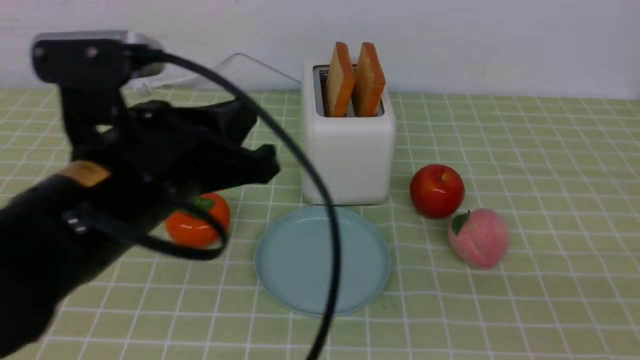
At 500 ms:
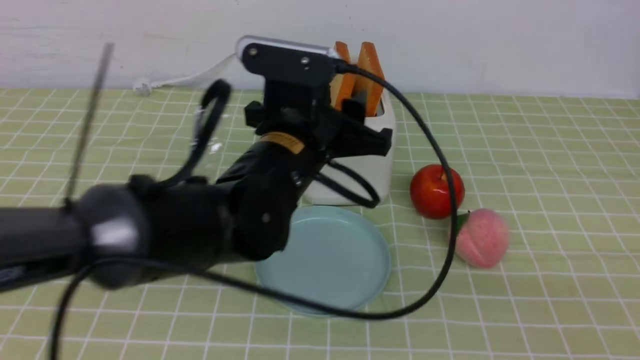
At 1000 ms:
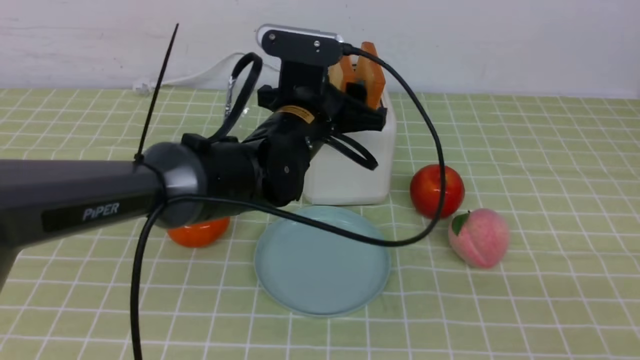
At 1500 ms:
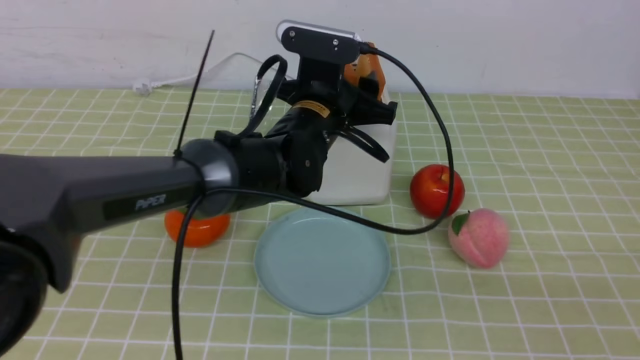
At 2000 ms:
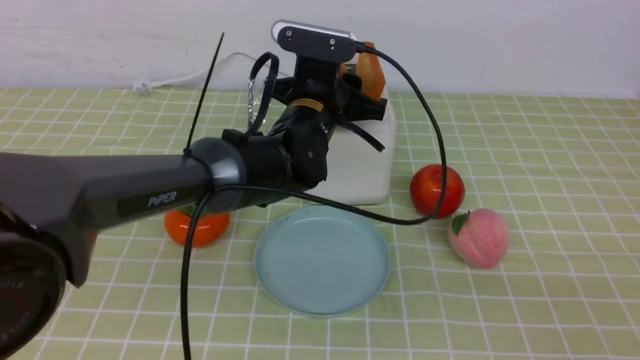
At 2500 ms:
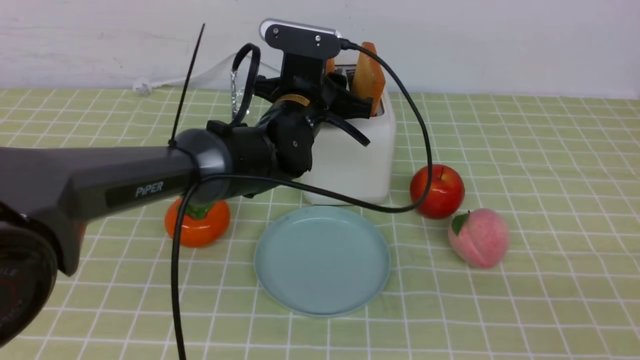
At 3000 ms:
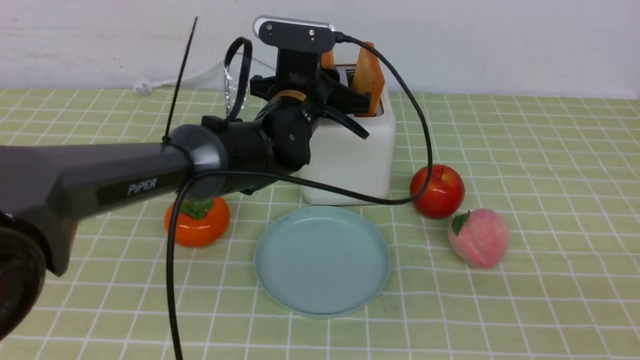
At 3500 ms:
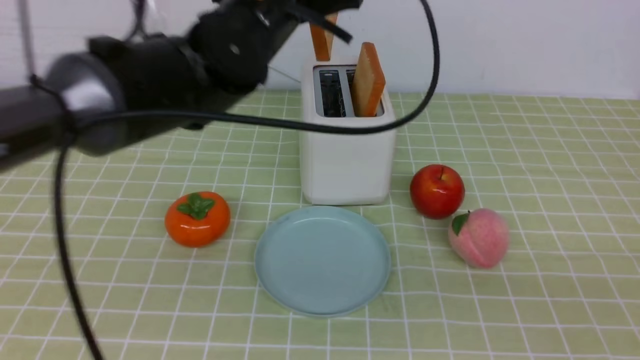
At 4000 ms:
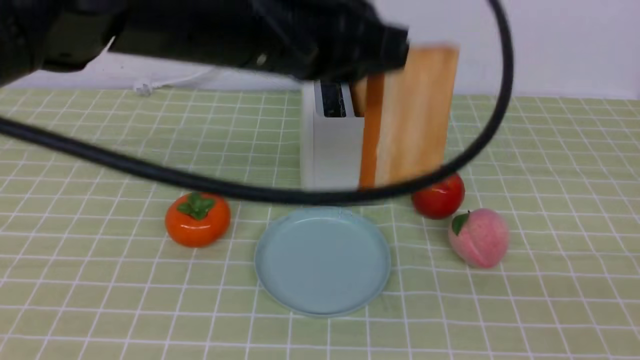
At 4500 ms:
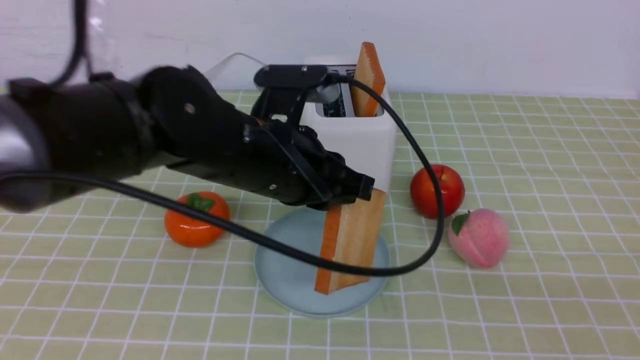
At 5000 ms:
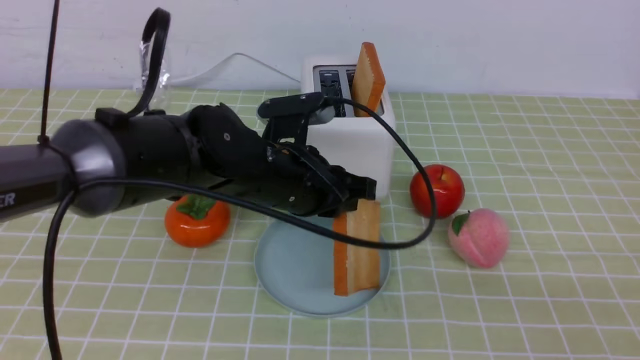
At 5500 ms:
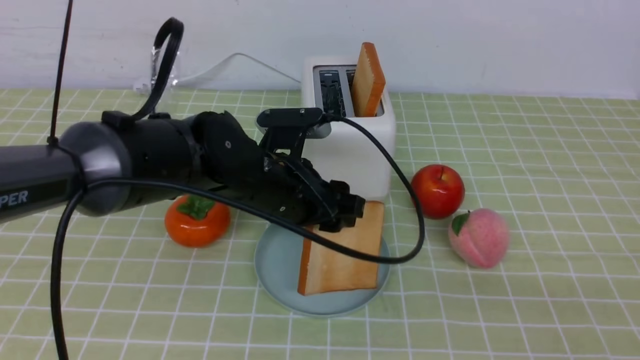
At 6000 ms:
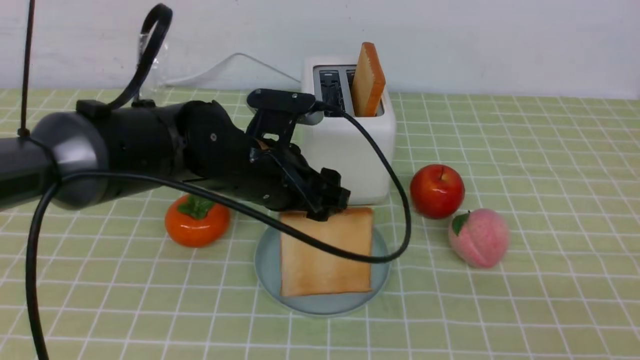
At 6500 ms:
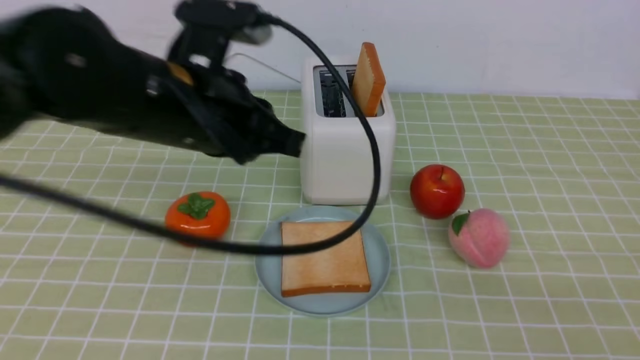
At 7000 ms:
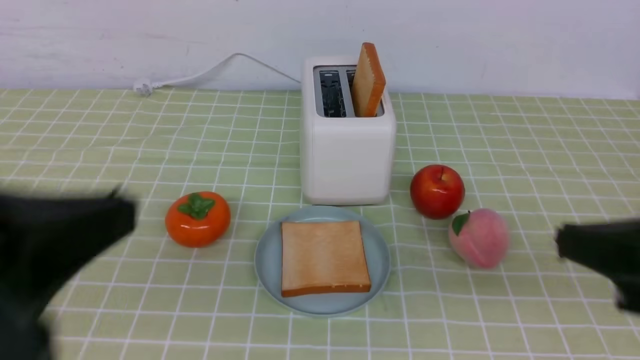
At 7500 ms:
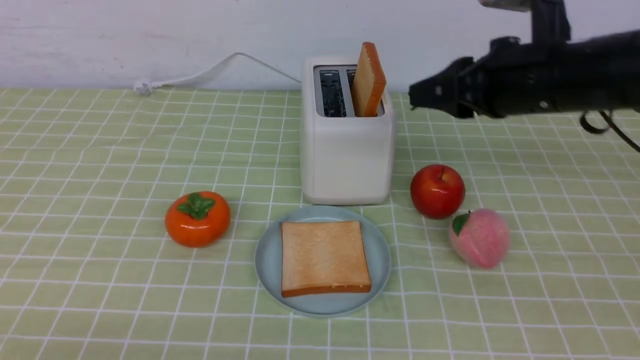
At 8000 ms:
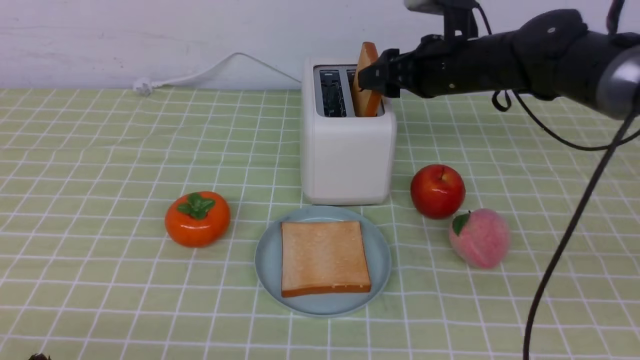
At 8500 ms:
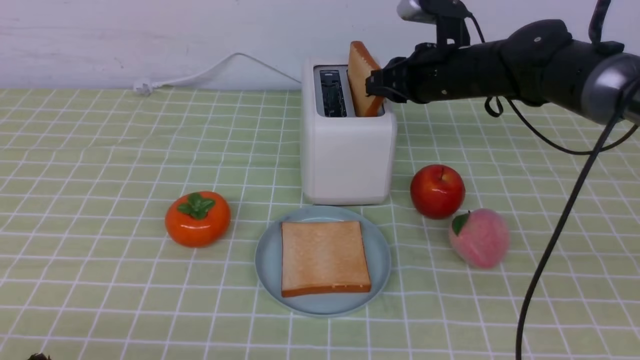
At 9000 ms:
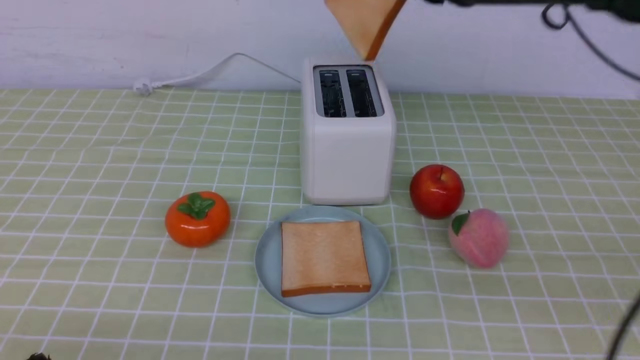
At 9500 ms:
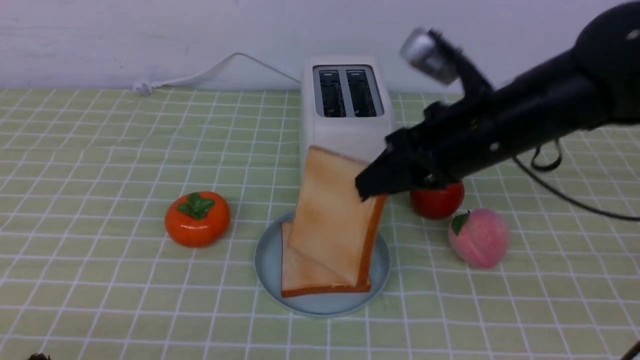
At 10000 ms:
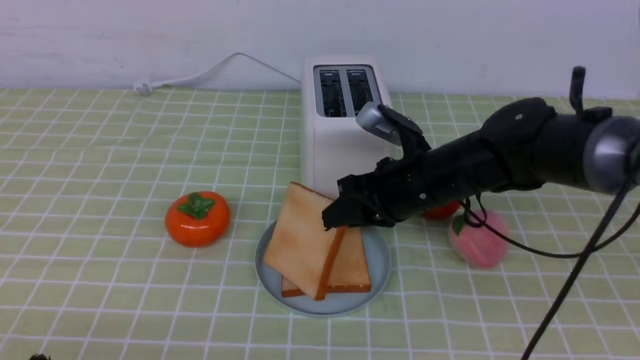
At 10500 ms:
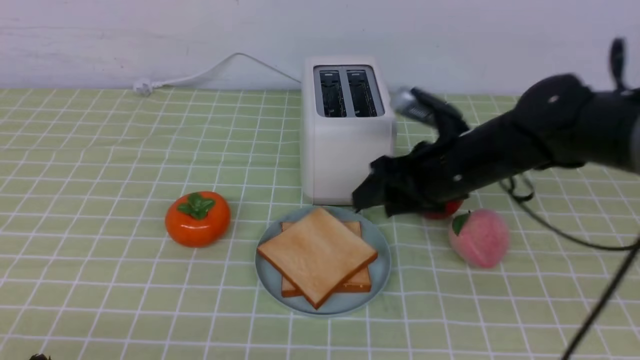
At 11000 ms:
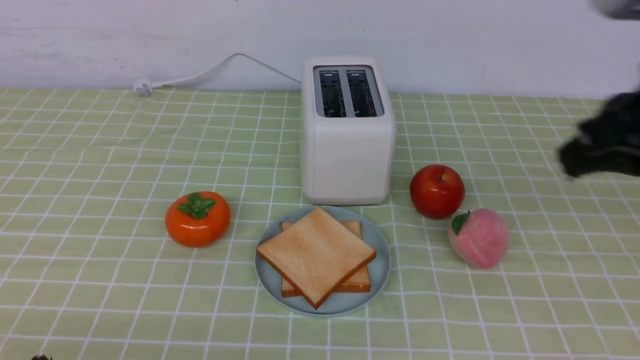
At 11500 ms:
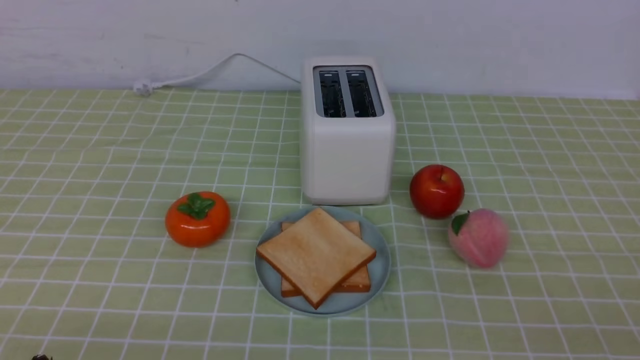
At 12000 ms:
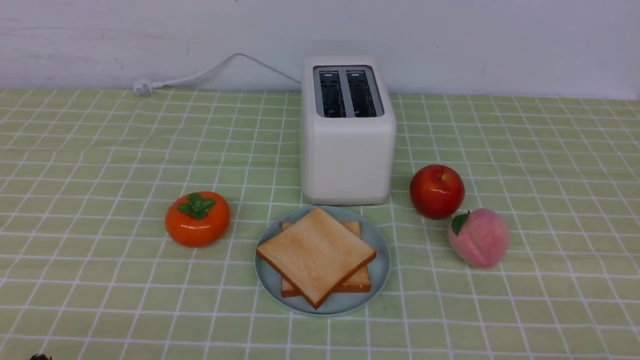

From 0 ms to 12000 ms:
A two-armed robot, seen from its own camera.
Task of the whole recording: take toasted bread from bread machine on green coffee tablecloth place on plate.
Step, from 0 ms to 3000 ms: use the left arm to take out a slice of bread.
Step, from 4000 ms to 6000 ms: use the left arm to put a slice of bread into the empty plate.
Step, from 6500 ms to 8500 ms: use the right arm to take out a slice of bread.
Step, from 9000 ms to 10500 ms: use the right arm to put a slice of bread into the plate.
From 0 ms to 2000 ms: The left gripper is displaced forward and to the right by some 25 cm, and opens.
From 2000 ms to 4000 ms: The left gripper goes approximately 20 cm backward and upward, and closes its fingers.
From 4000 ms to 6000 ms: The left gripper shifts approximately 15 cm downward and forward, and opens its fingers.
From 6000 ms to 8000 ms: The left gripper goes roughly 35 cm backward and to the left, and closes its fingers, while the right gripper goes approximately 40 cm forward, and opens.
From 8000 ms to 10000 ms: The right gripper shifts about 15 cm backward, downward and to the left, and closes up.
From 10000 ms to 12000 ms: The right gripper heads backward and to the right, covering roughly 35 cm, and closes up.
